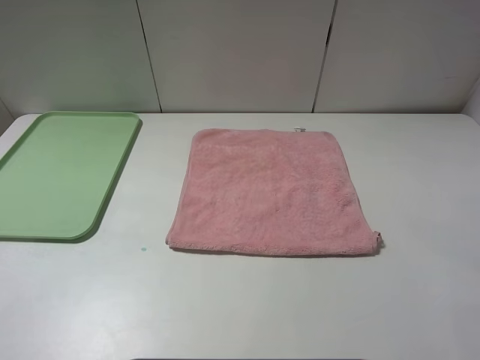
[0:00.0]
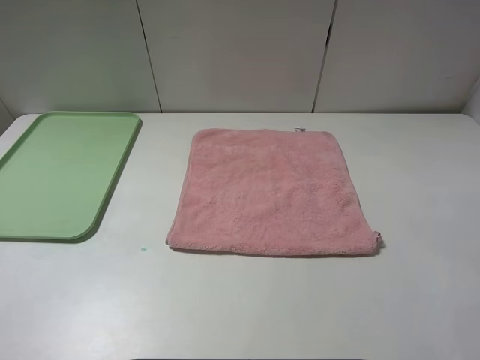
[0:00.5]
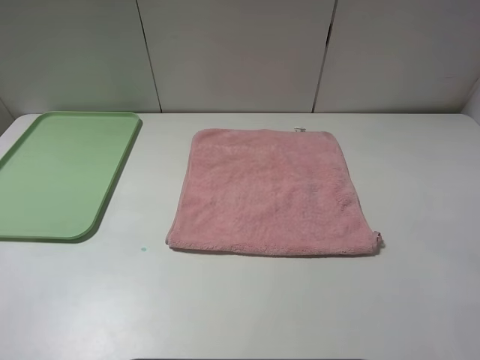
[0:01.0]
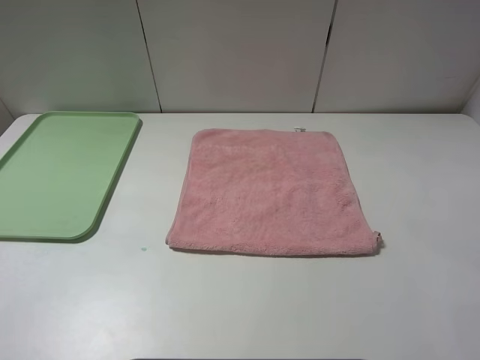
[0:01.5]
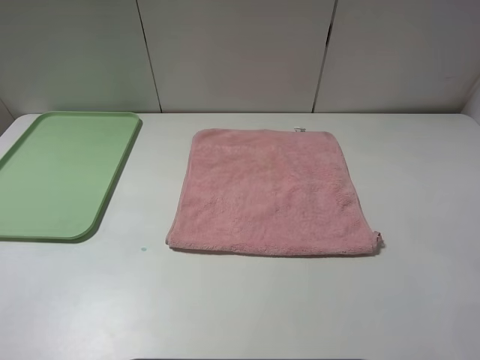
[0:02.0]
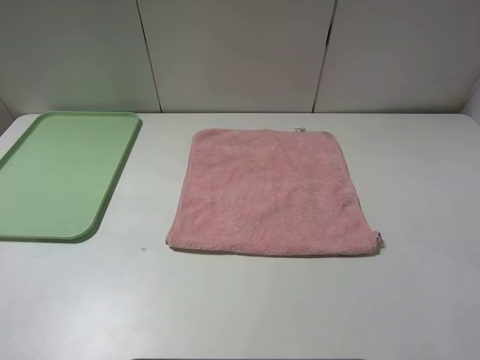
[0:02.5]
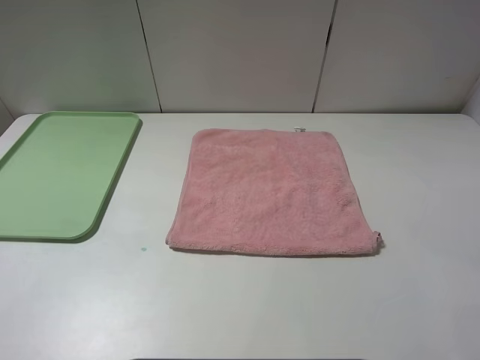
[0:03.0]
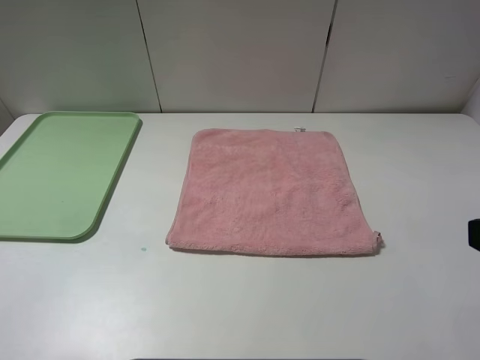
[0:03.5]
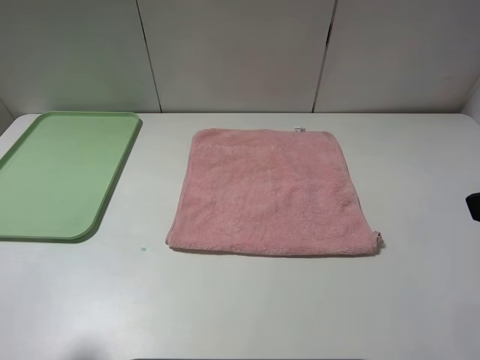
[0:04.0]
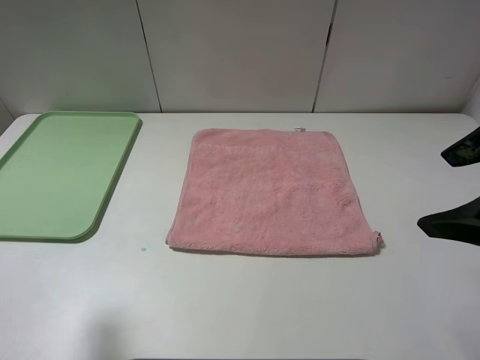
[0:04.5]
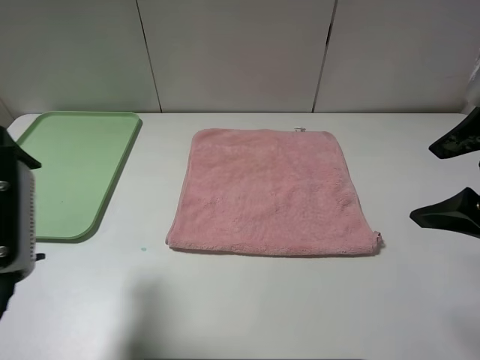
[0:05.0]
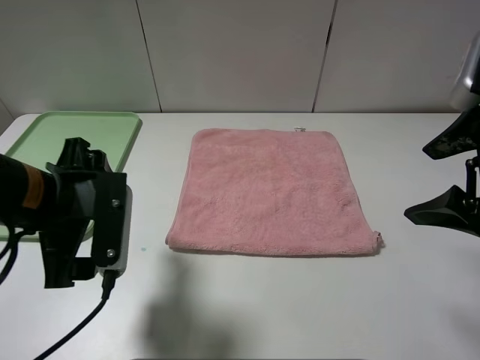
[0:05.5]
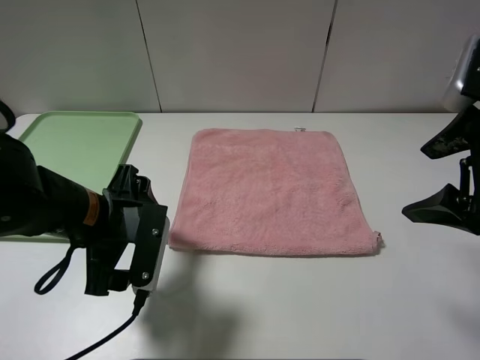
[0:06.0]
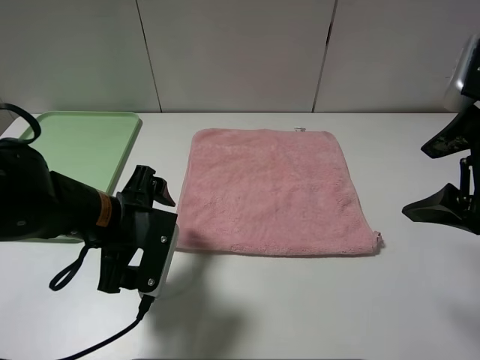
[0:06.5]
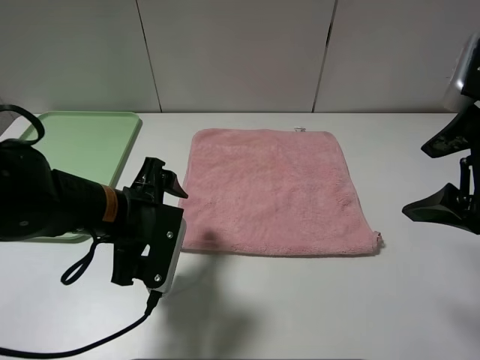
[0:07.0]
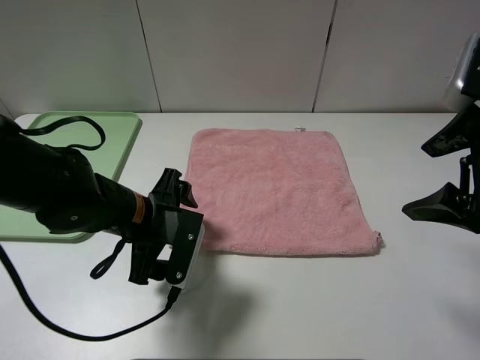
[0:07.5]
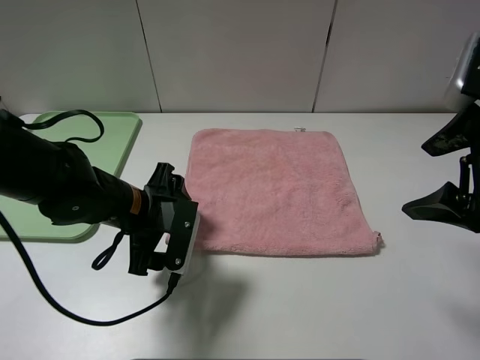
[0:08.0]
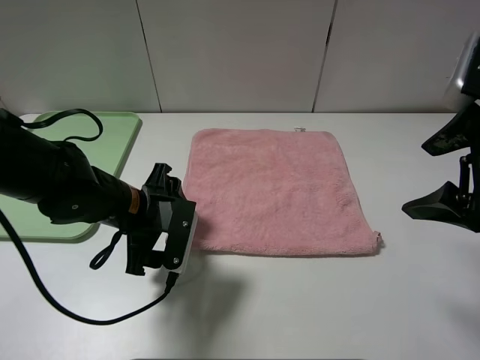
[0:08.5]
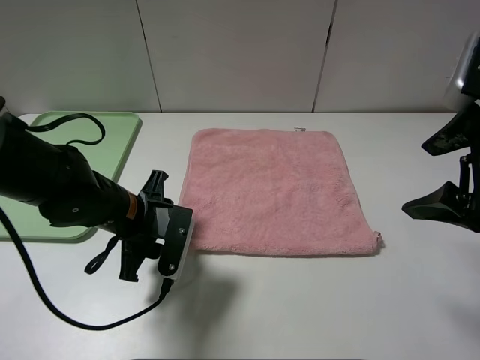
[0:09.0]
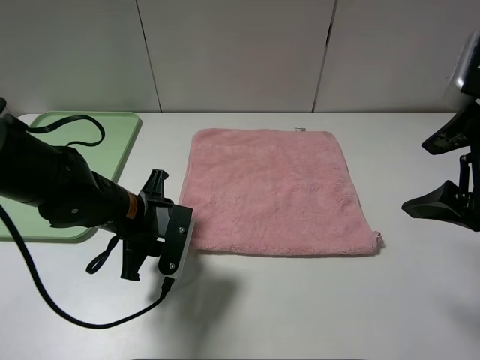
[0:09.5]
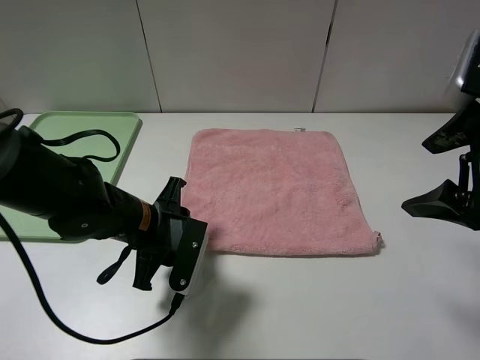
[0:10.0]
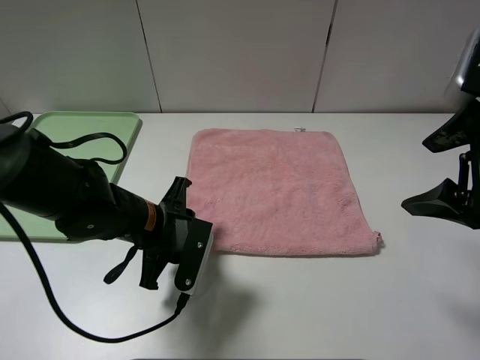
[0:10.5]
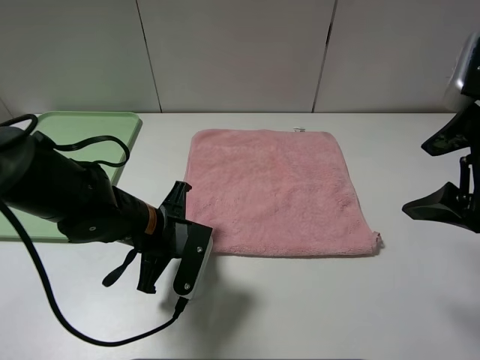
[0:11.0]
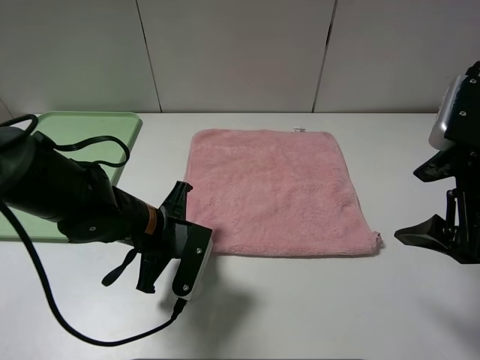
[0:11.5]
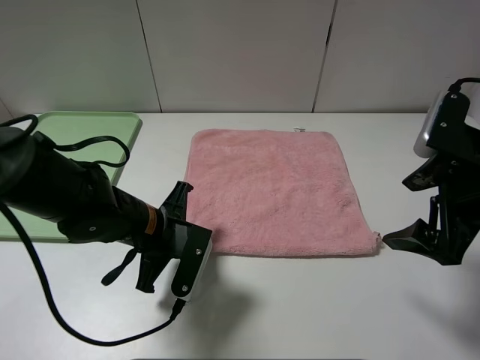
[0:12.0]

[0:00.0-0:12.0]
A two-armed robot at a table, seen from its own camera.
0:00.0 to 0:02.0: The two grippers keep their place.
0:04.0 to 0:06.0: The left gripper moves to the right, downward and forward, some 20 cm; the right gripper moves forward and downward, about 10 cm.
0:06.0 to 0:08.0: The left gripper changes place by roughly 5 cm.
0:08.0 to 0:10.0: The left gripper closes its fingers.
0:10.0 to 0:12.0: The right gripper shifts approximately 5 cm downward. The left gripper closes.

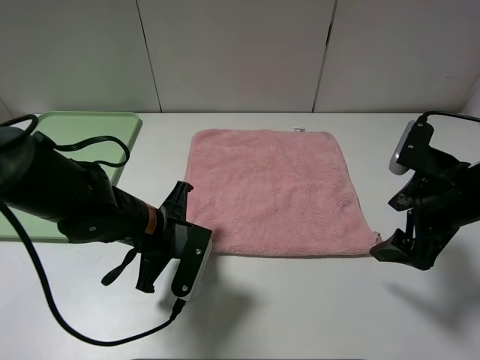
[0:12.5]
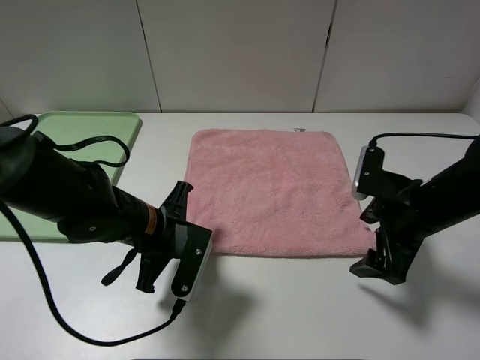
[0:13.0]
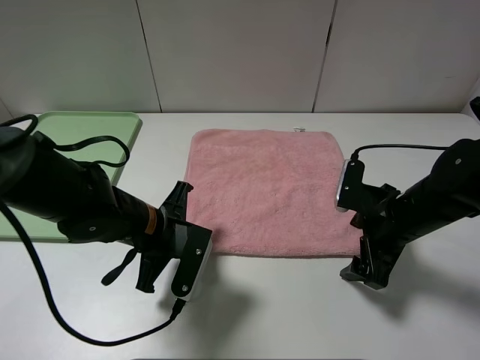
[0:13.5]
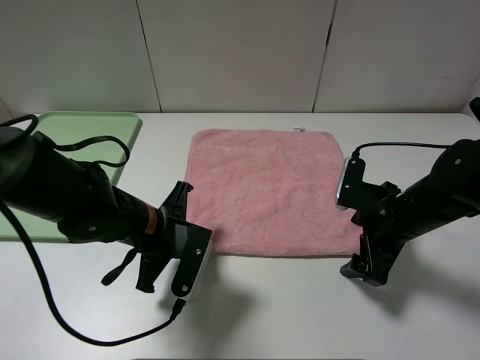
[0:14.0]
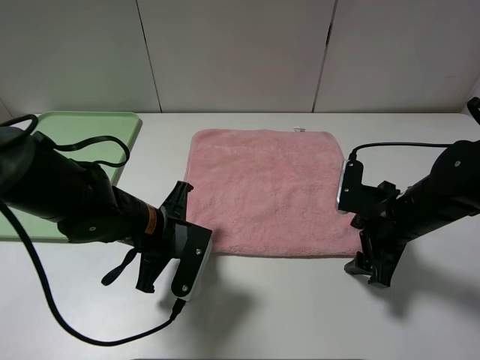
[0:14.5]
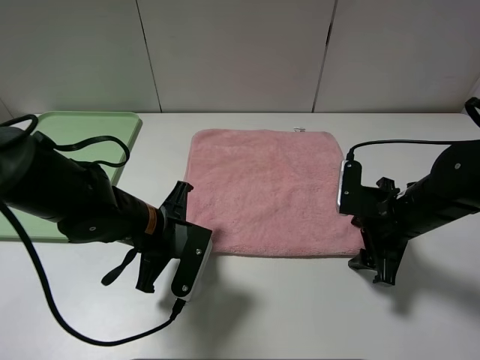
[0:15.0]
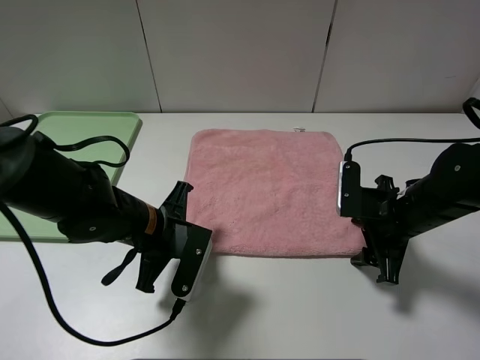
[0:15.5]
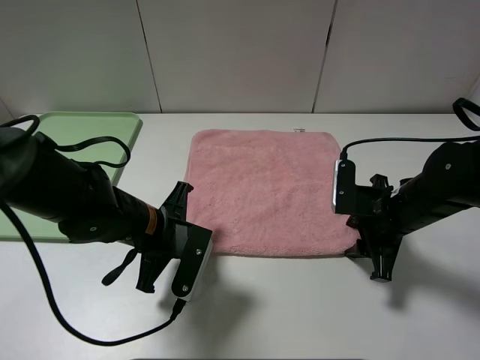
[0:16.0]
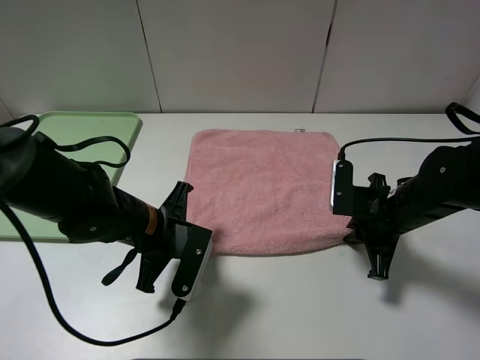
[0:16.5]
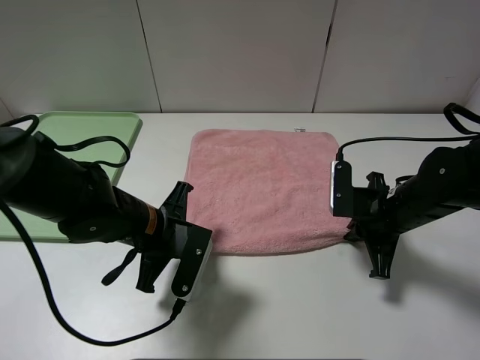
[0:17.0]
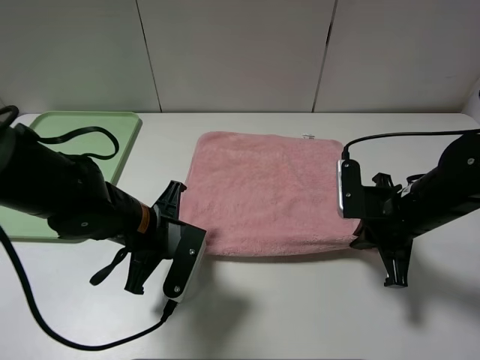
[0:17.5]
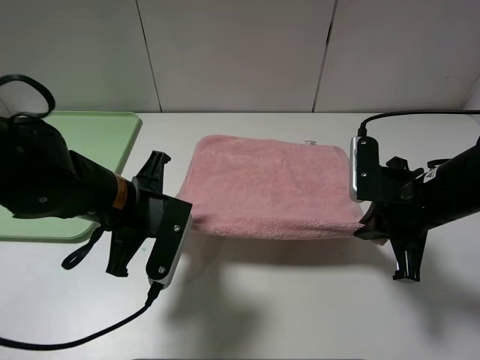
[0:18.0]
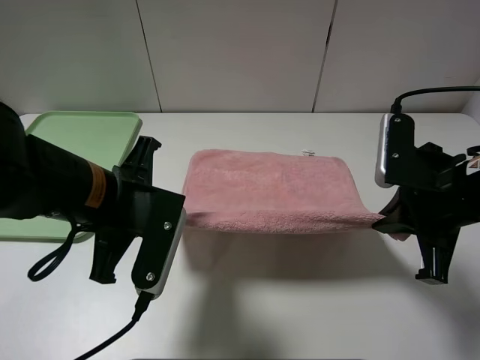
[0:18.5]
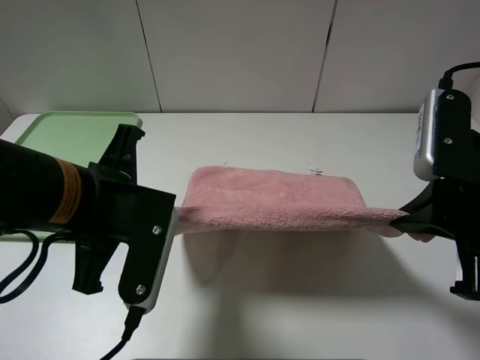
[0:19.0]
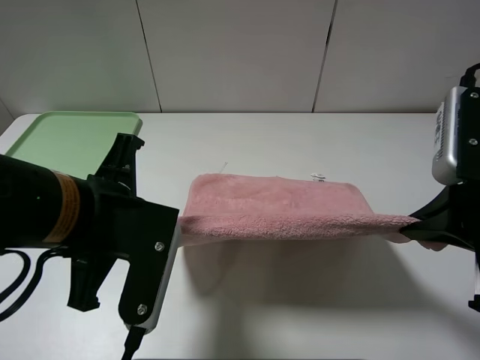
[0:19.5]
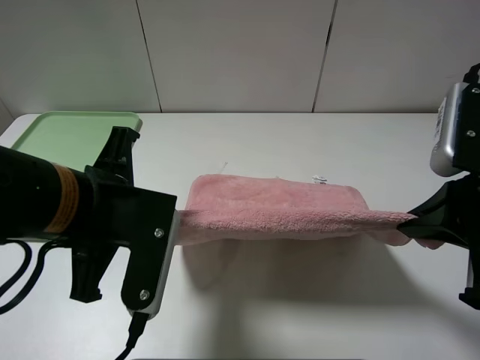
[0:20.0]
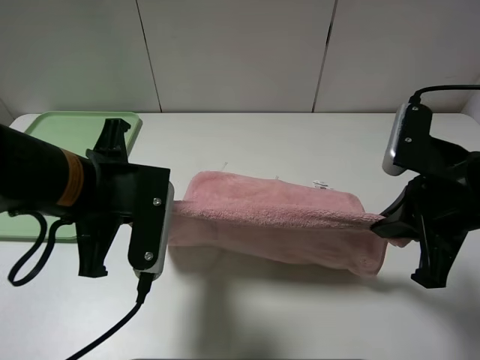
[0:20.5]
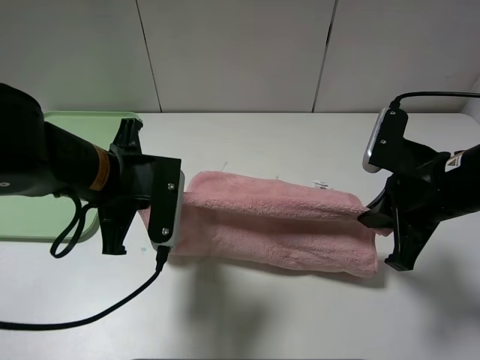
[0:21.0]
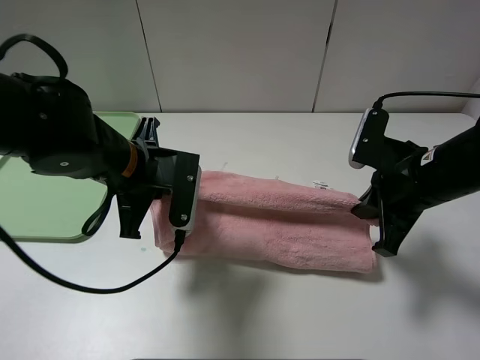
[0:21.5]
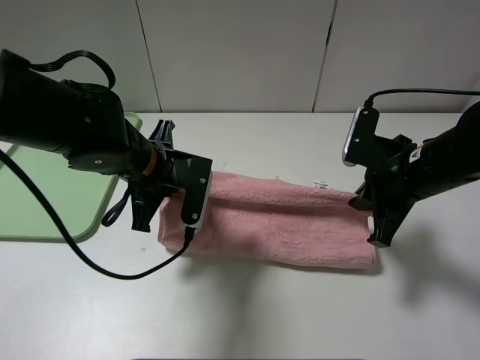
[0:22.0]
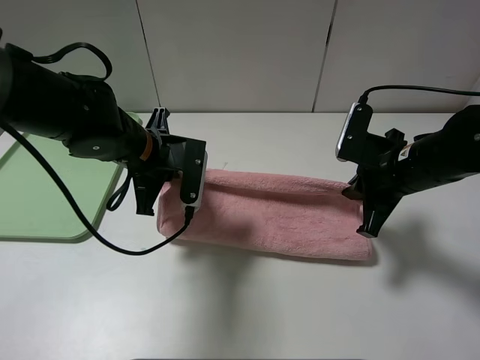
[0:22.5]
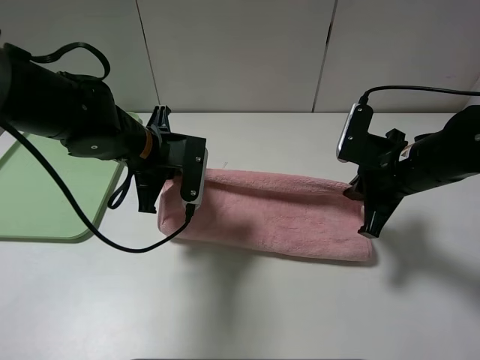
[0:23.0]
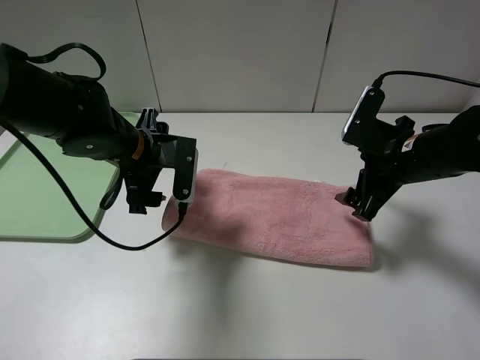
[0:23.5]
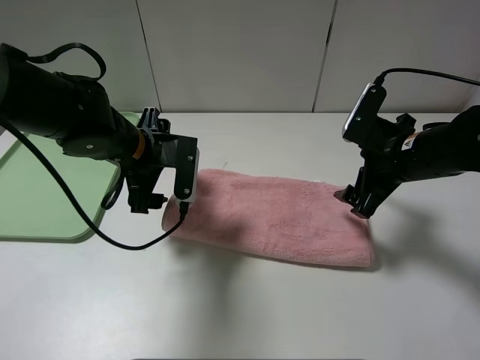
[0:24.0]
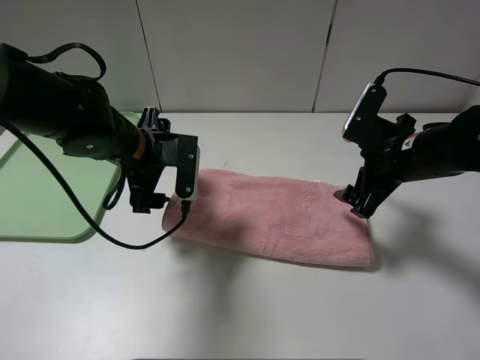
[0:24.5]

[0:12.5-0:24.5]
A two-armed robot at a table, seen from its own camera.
Step, 0:12.5 to 0:23.5: Fold the pink towel upwards.
0:12.5 to 0:14.5: The right gripper moves downward, roughly 5 cm.
0:14.5 to 0:16.5: The right gripper closes up.
0:16.5 to 0:18.5: The right gripper travels upward and backward by approximately 15 cm. Meanwhile the left gripper moves upward, some 10 cm.
0:20.5 to 0:22.5: The two grippers go roughly 10 cm forward and downward.
0:22.5 to 0:24.5: The right gripper opens its fingers; the left gripper opens.

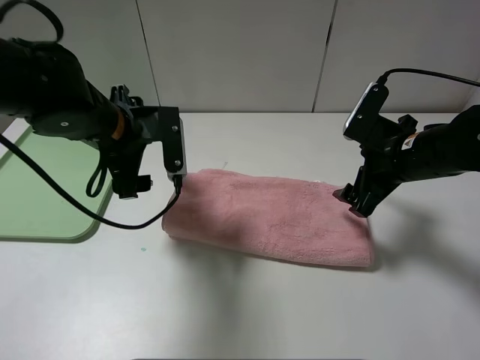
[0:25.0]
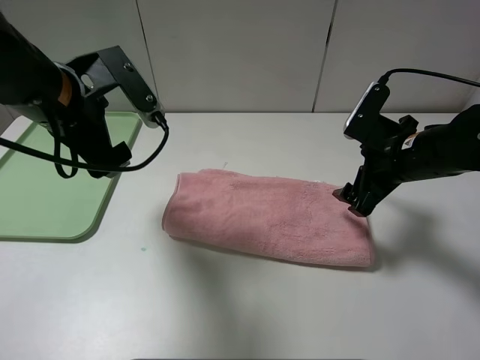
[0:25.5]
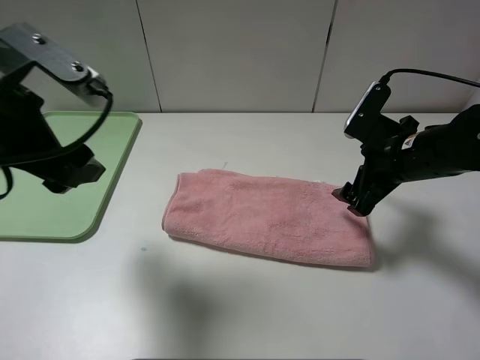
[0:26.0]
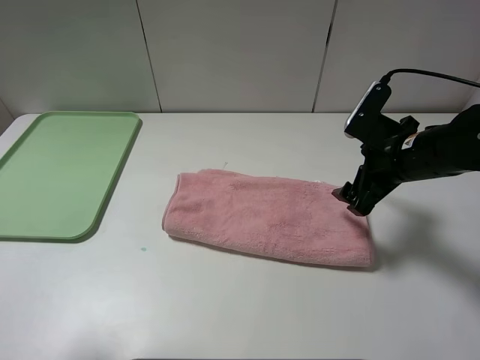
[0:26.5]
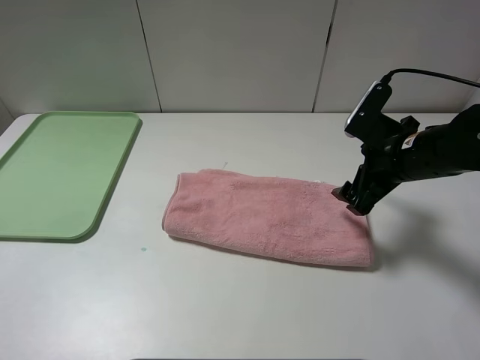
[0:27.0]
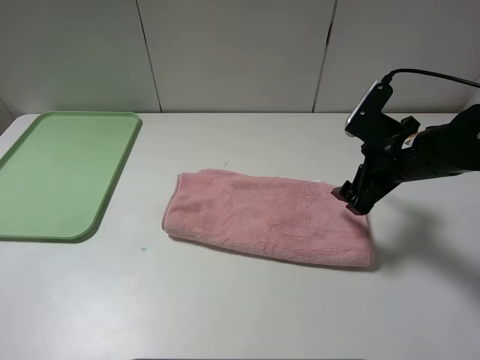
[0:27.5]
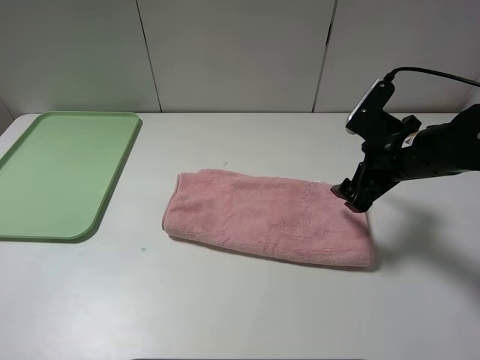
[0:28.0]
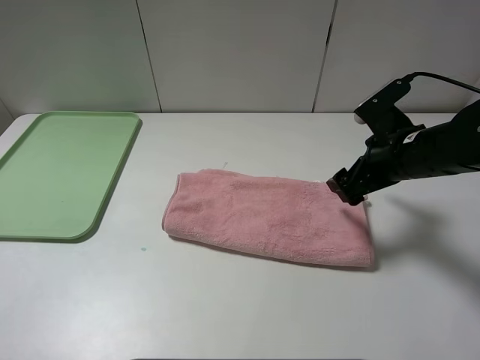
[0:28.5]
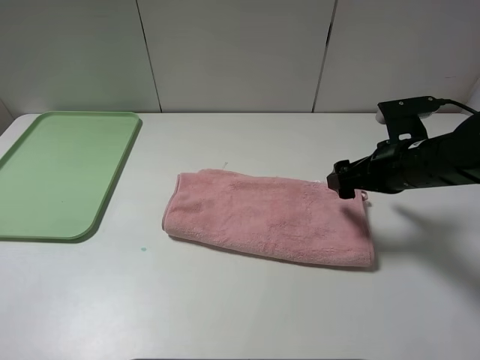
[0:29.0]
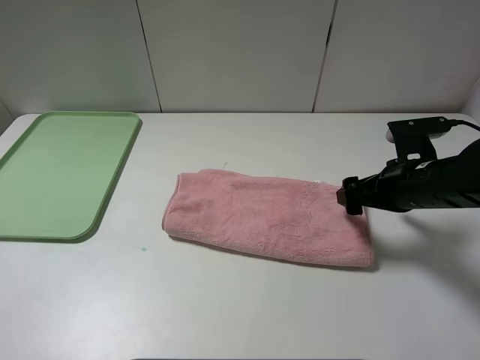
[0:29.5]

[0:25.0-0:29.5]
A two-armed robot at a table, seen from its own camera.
0:25.0 to 0:27.0: The left gripper is displaced backward and to the left by some 30 cm.
